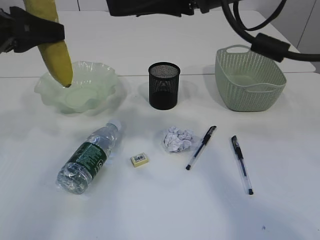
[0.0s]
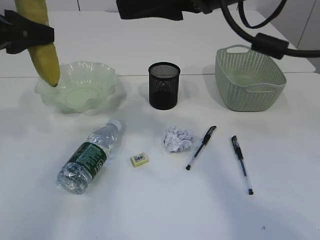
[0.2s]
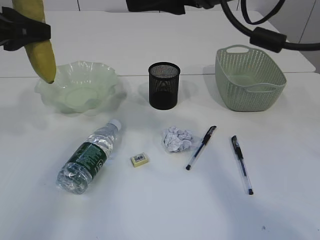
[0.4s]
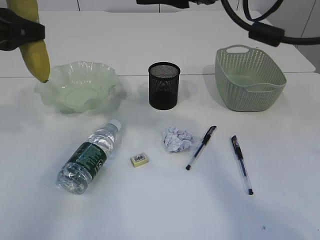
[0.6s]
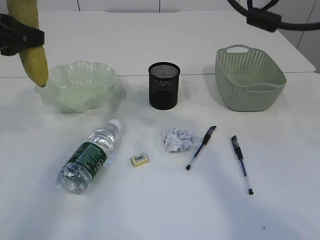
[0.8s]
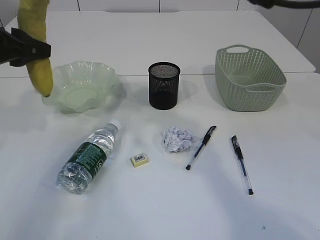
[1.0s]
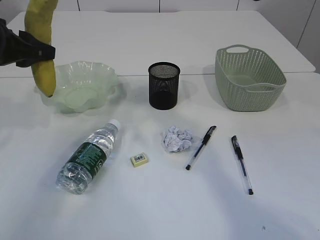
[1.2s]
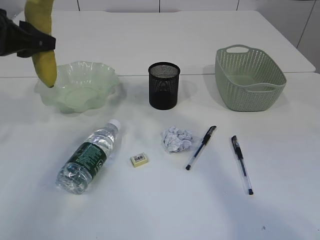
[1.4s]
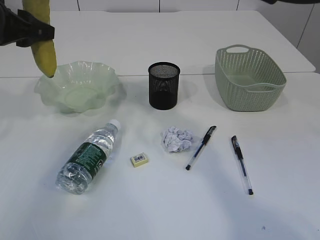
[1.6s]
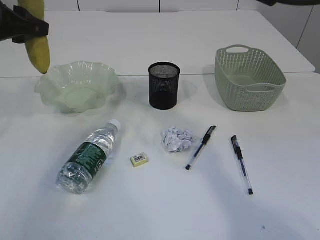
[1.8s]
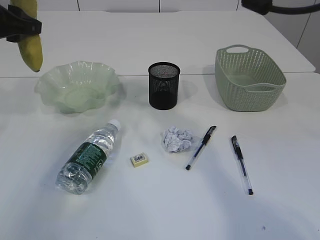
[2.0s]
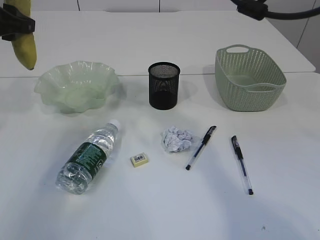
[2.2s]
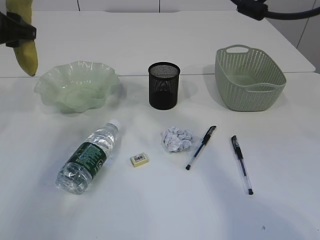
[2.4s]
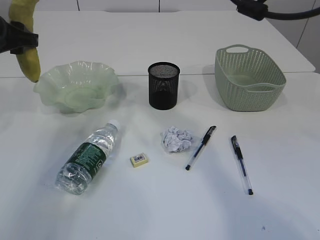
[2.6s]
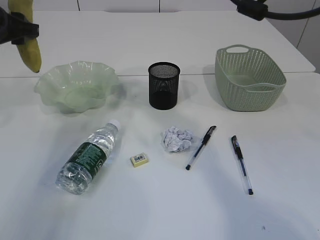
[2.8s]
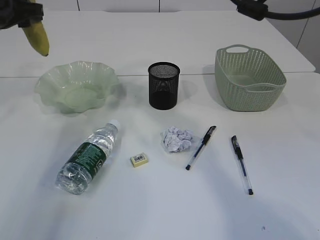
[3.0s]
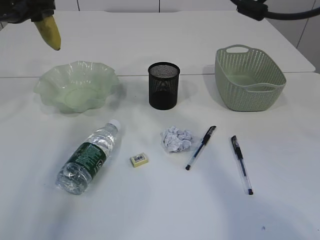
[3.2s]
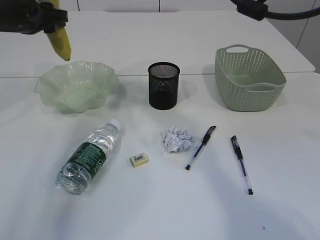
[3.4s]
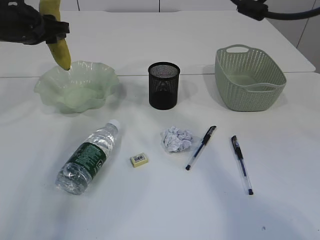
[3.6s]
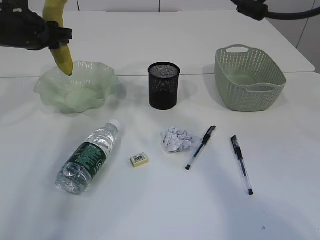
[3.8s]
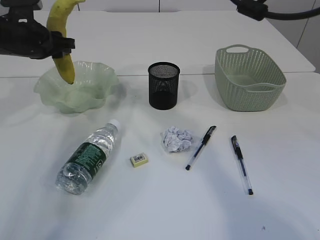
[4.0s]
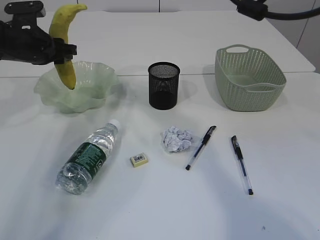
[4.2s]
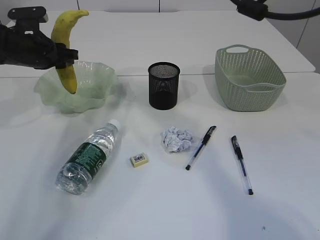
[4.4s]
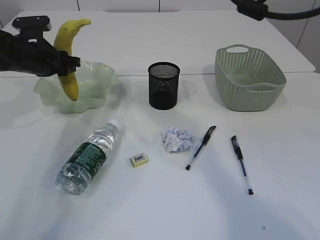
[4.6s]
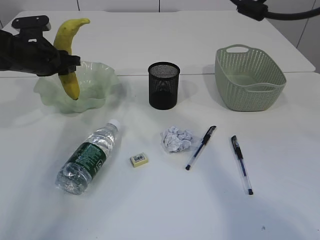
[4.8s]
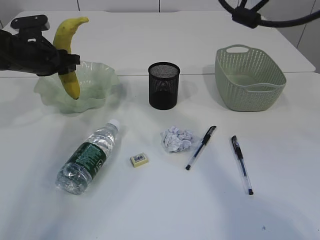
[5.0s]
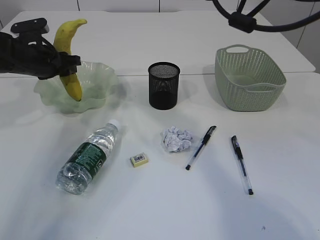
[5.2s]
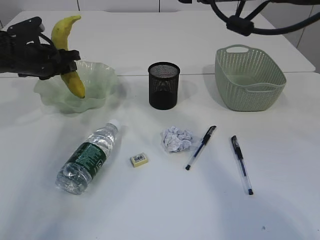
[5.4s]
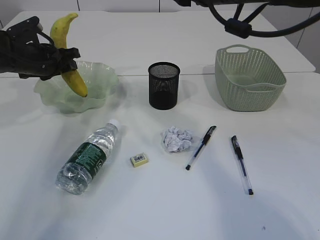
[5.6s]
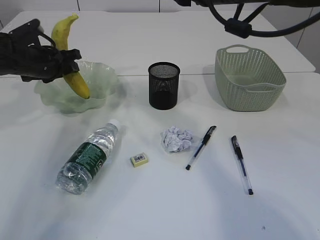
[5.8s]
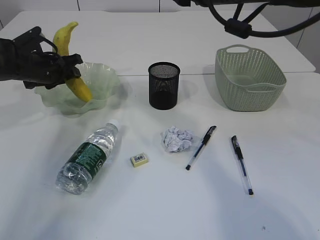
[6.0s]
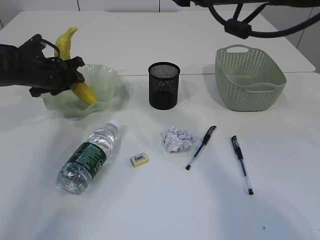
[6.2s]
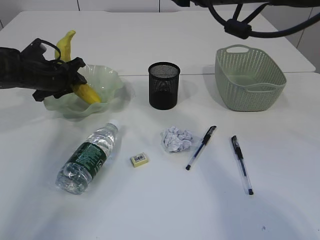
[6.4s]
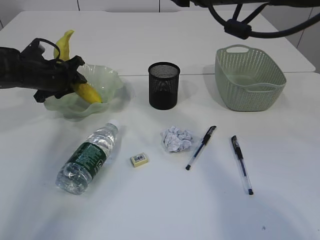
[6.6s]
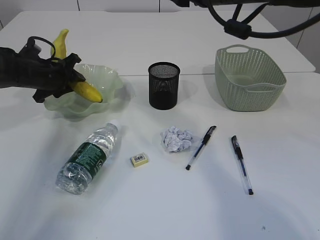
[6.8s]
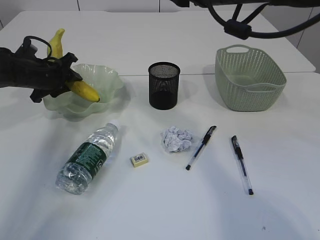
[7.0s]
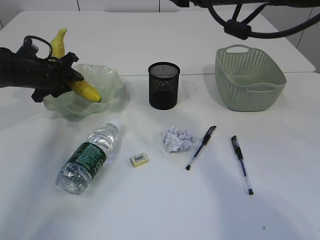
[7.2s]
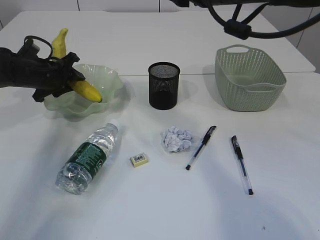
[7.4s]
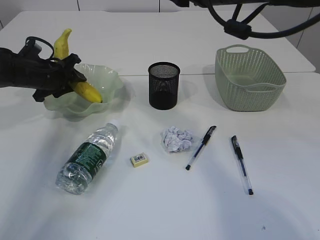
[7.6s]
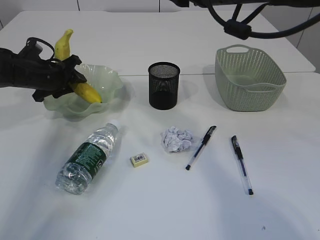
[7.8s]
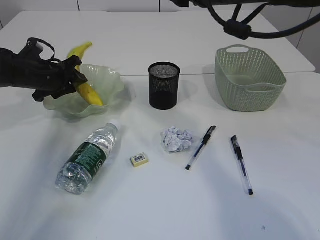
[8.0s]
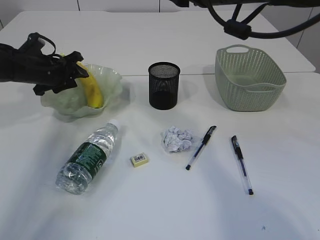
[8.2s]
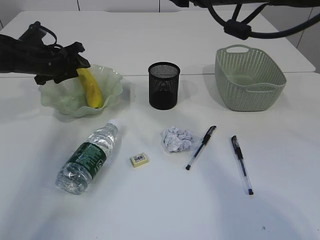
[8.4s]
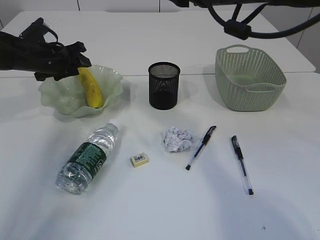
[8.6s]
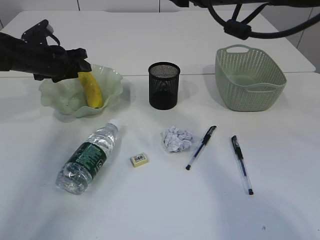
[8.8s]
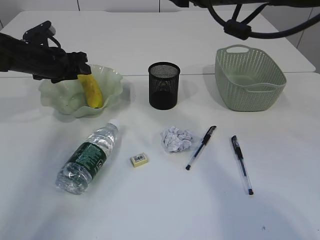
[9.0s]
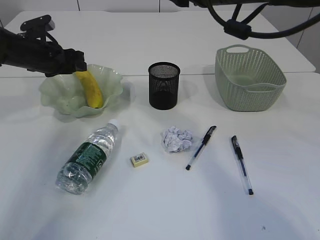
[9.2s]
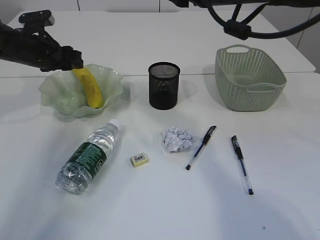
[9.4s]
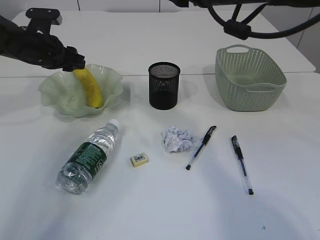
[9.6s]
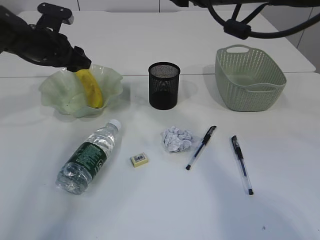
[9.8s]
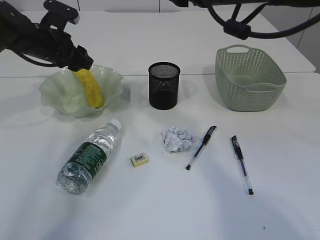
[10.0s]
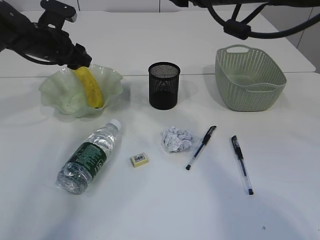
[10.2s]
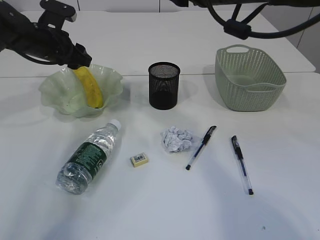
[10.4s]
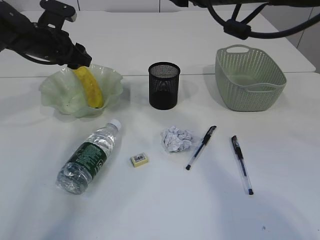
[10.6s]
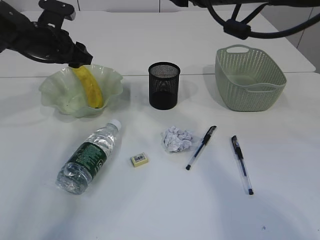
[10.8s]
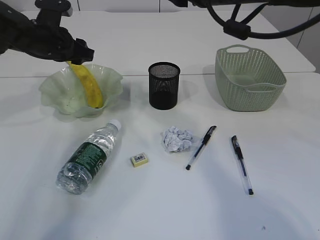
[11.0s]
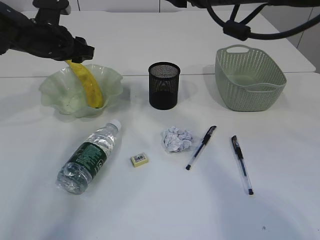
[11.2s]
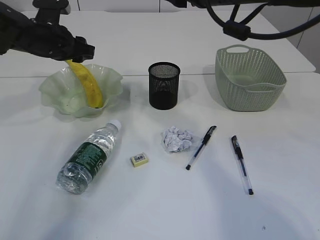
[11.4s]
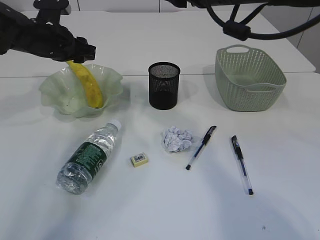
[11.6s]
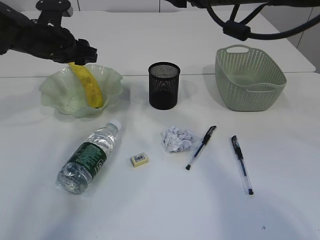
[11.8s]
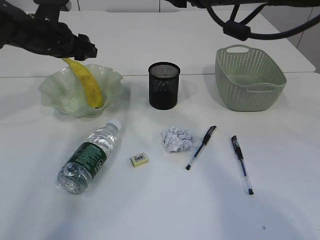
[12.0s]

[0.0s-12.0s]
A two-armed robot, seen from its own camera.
0.0s to 1.6s: The two grippers go roughly 5 cm forward. The right gripper closes its fingers.
1.6s to 3.0s: The left gripper travels forward by about 5 cm.
3.0s to 4.4s: The left gripper is displaced downward by about 10 cm.
9.0s to 10.4s: The left gripper changes place by approximately 5 cm.
10.4s to 12.0s: There are only small adjustments of the grippers.

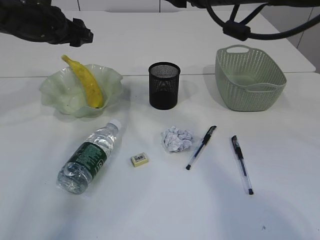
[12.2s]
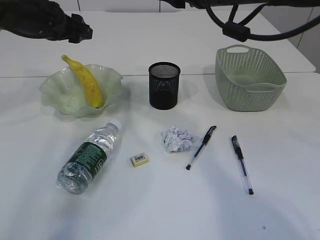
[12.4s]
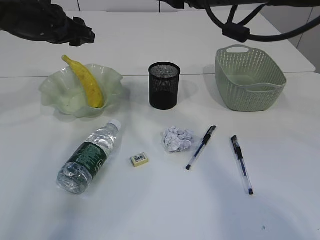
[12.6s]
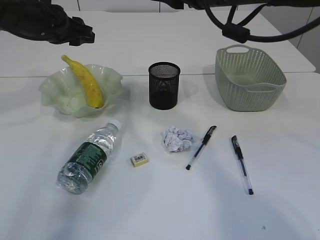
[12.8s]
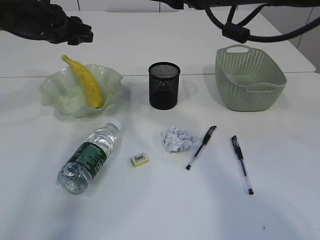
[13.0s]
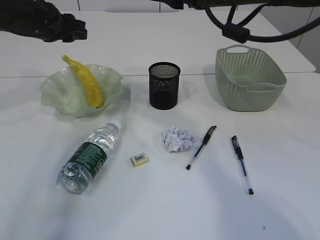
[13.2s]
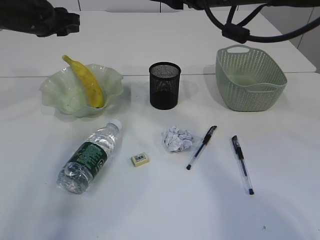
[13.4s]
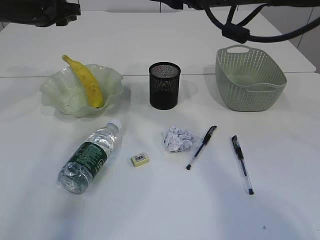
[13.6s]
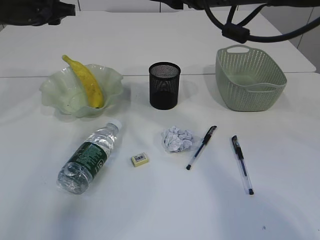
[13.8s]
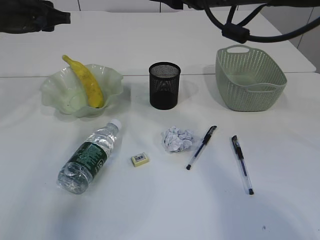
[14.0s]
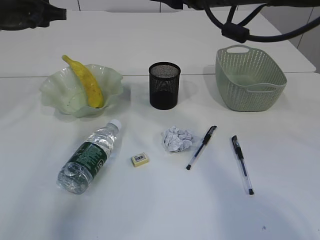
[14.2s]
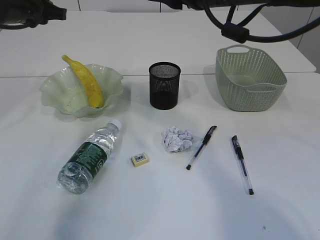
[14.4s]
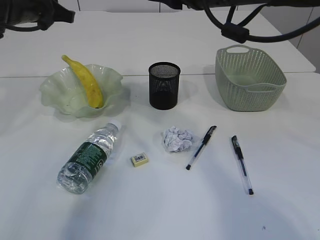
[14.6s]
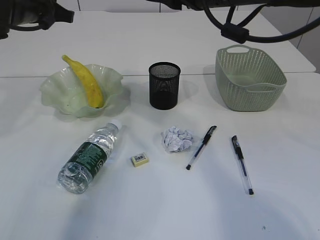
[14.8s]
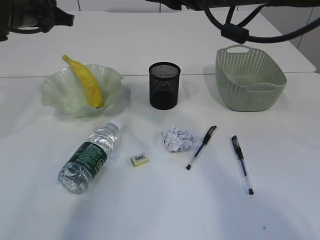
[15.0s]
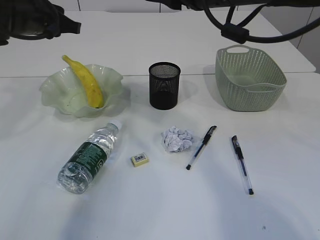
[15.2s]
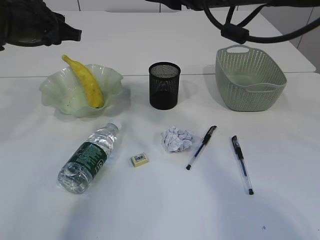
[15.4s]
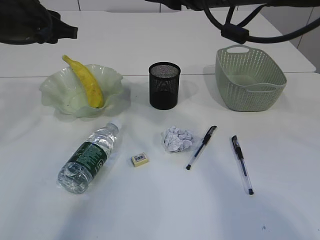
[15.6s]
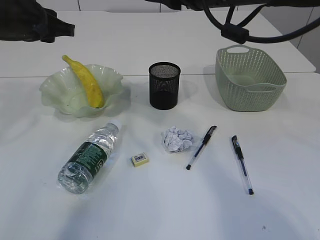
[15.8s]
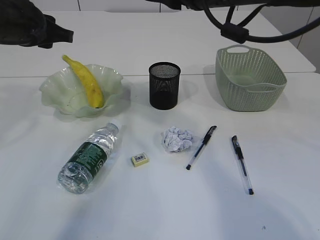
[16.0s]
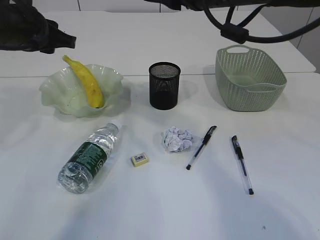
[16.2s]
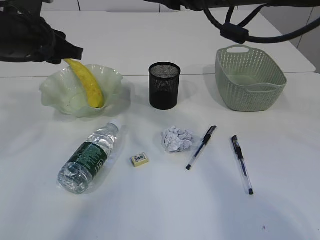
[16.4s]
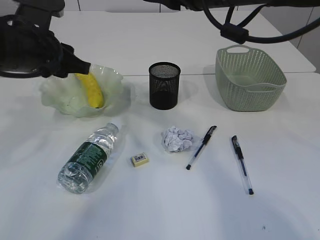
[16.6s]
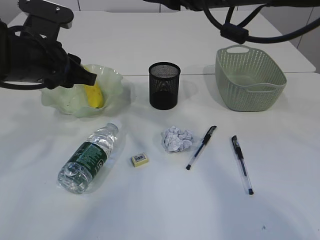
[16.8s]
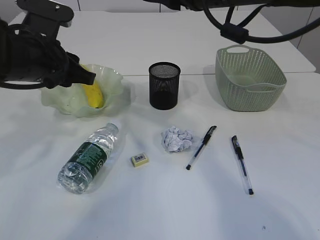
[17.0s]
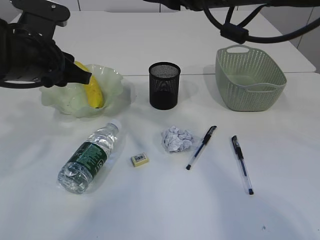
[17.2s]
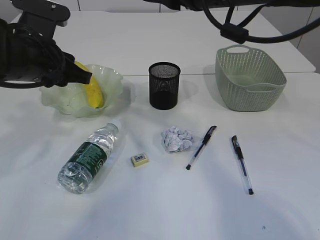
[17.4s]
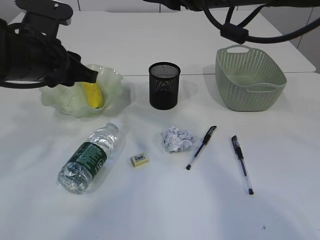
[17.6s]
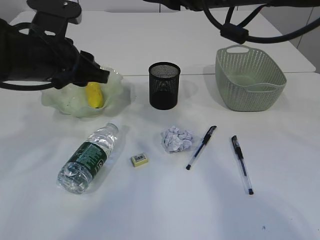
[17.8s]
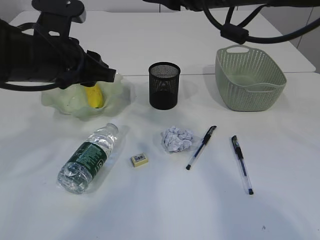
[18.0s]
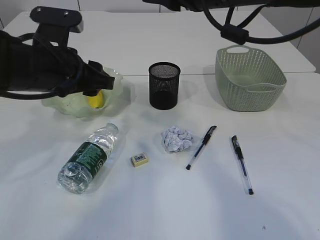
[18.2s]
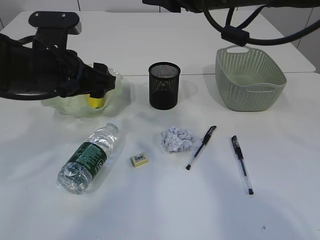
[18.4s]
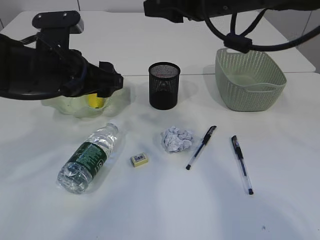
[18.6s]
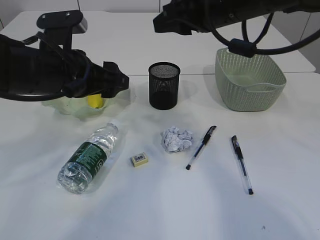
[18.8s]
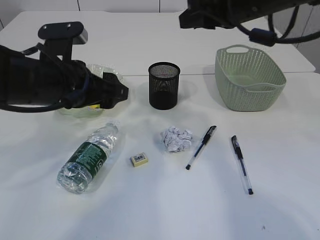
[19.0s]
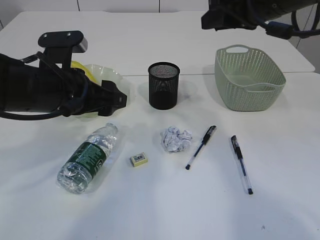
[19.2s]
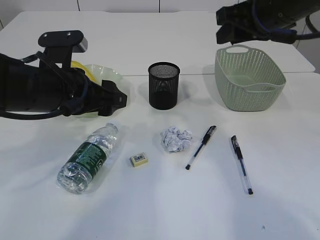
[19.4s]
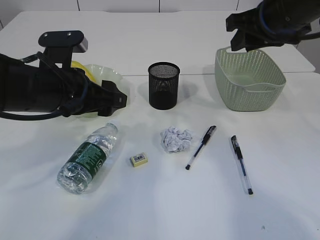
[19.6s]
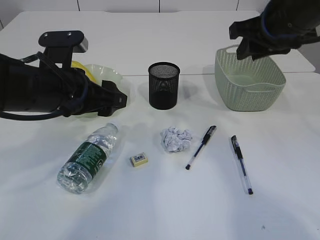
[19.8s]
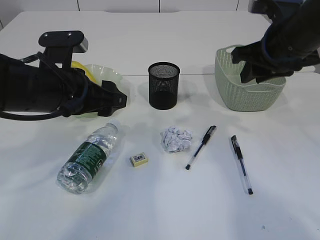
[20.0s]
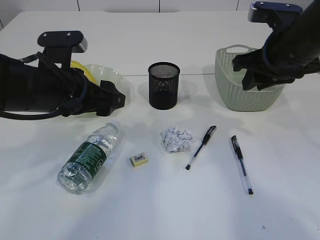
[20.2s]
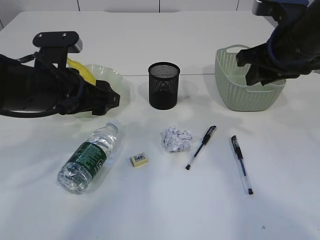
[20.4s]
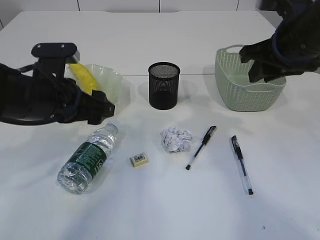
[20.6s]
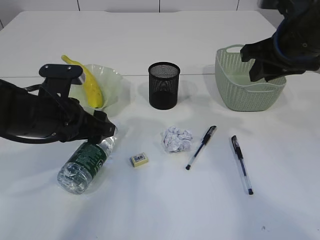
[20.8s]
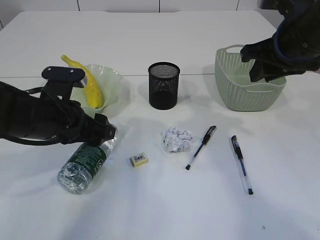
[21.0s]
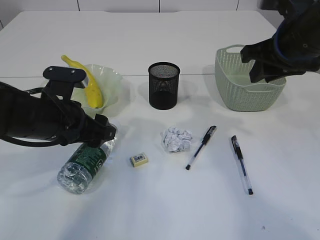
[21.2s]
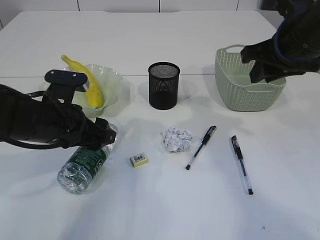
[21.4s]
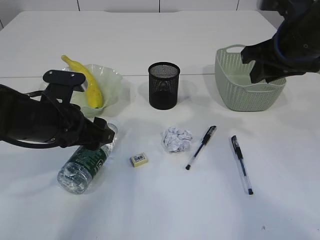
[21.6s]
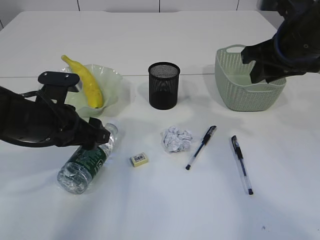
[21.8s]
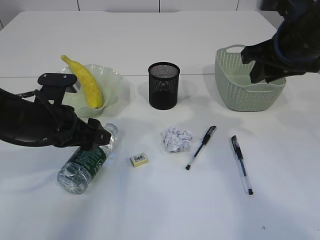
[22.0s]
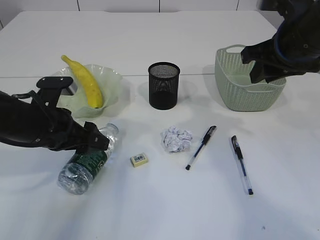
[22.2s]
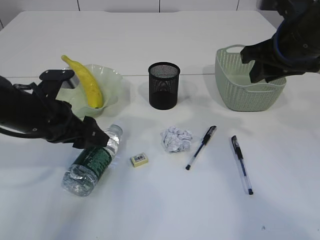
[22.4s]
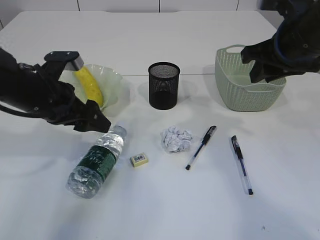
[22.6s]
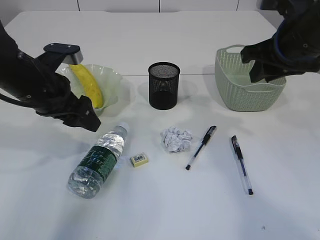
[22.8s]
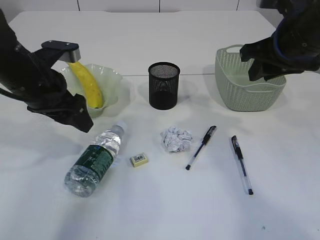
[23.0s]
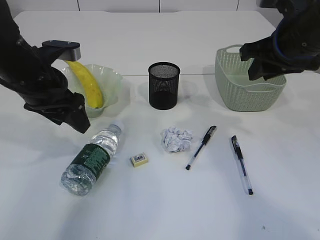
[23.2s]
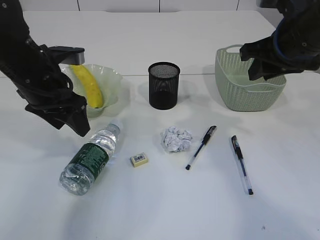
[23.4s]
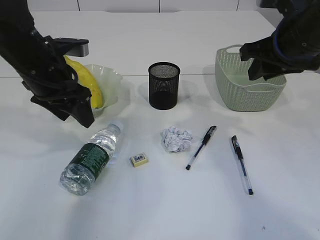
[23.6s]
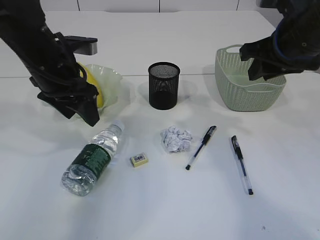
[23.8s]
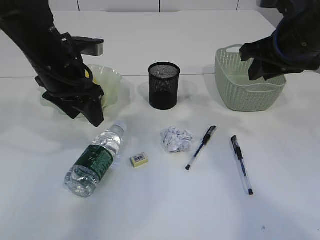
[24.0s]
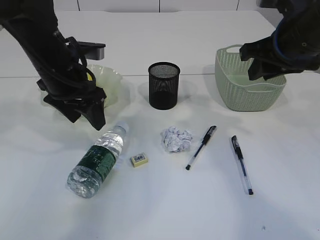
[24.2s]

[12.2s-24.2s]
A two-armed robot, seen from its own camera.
12.2s to 13.8s: The left gripper closes up.
15.2s to 16.6s: The left gripper heads backward, covering some 5 cm.
16.6s to 18.2s: The grippers stay close to where they were, moving slightly.
18.2s to 19.8s: The left gripper opens. Meanwhile the right gripper travels to the right by some 10 cm.
19.8s to 21.2s: The left gripper is displaced downward by some 5 cm.
21.2s to 22.6s: The grippers stay close to where they were, moving slightly.
22.6s to 24.2s: The left gripper shifts by some 5 cm.
